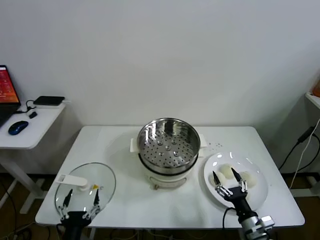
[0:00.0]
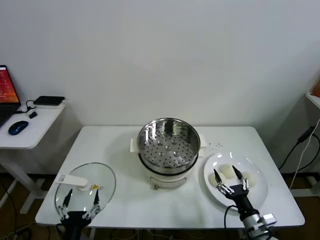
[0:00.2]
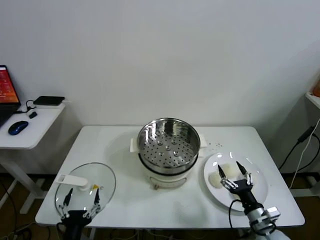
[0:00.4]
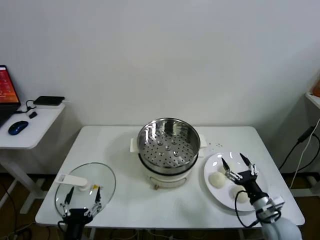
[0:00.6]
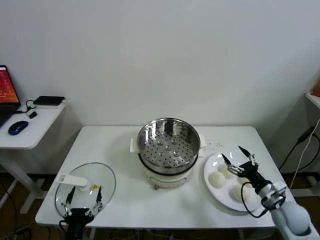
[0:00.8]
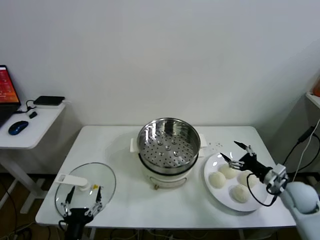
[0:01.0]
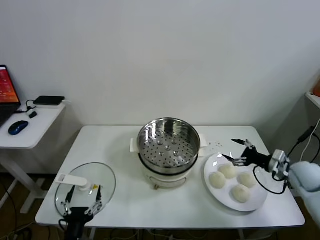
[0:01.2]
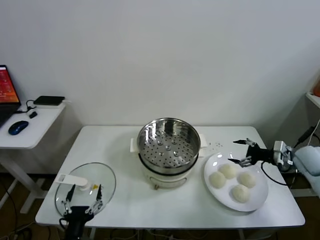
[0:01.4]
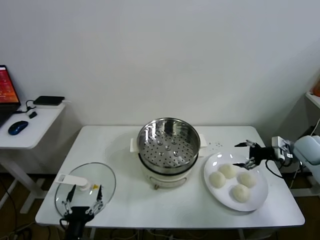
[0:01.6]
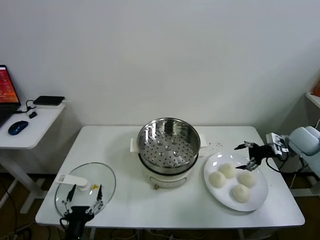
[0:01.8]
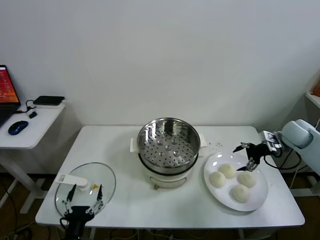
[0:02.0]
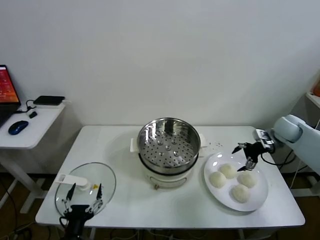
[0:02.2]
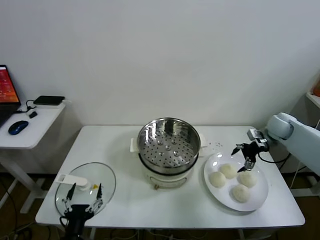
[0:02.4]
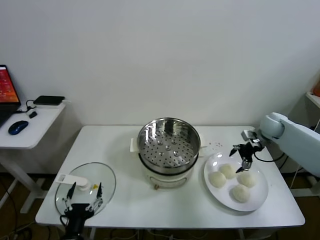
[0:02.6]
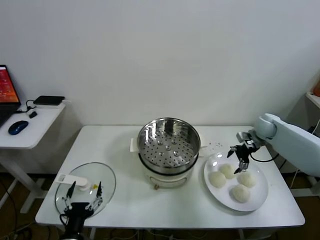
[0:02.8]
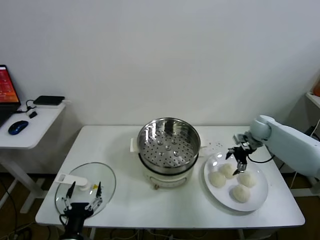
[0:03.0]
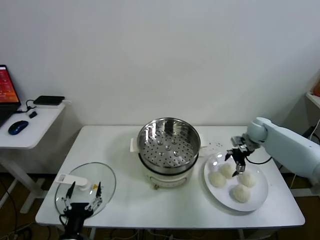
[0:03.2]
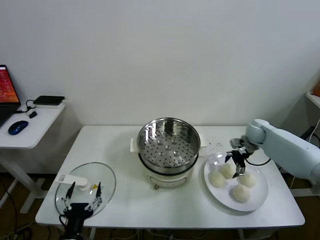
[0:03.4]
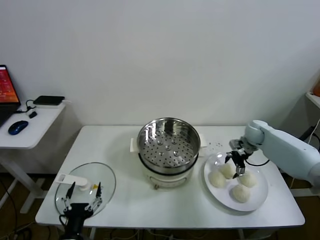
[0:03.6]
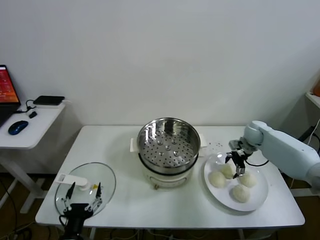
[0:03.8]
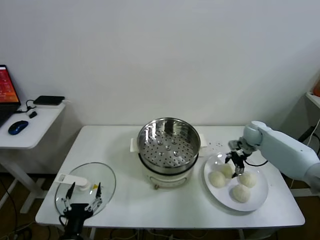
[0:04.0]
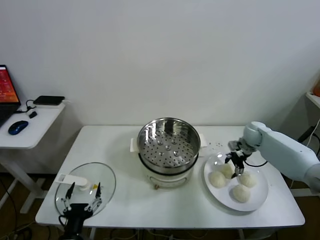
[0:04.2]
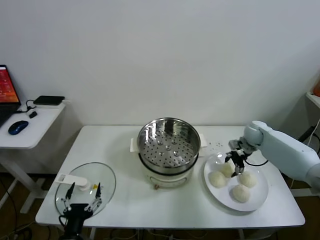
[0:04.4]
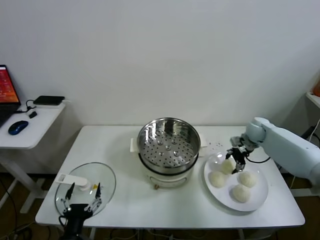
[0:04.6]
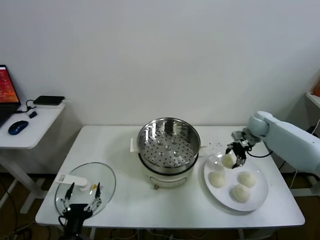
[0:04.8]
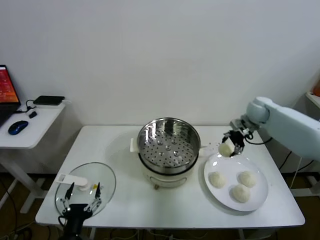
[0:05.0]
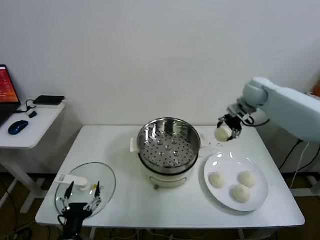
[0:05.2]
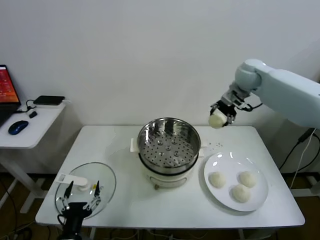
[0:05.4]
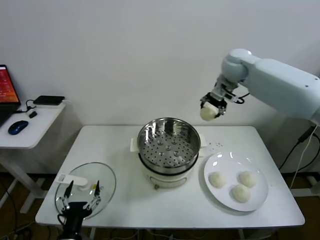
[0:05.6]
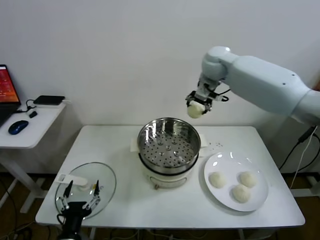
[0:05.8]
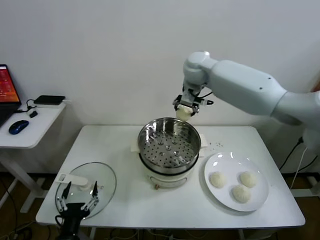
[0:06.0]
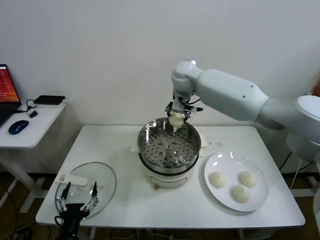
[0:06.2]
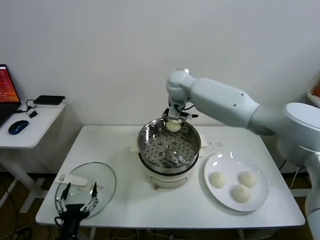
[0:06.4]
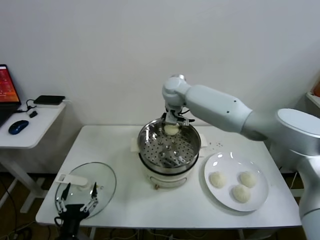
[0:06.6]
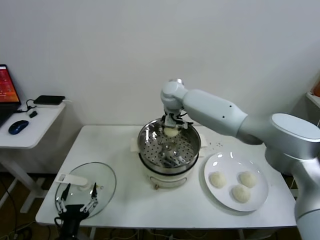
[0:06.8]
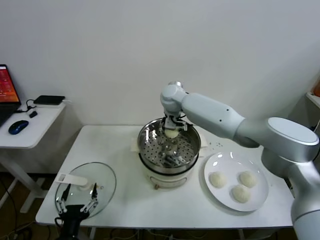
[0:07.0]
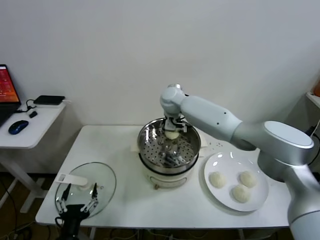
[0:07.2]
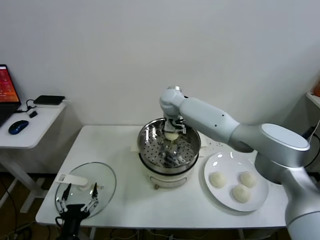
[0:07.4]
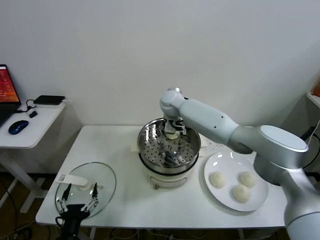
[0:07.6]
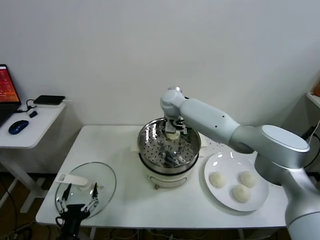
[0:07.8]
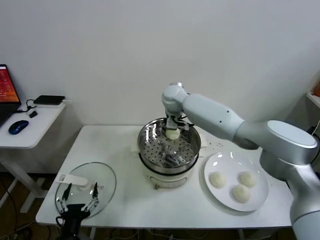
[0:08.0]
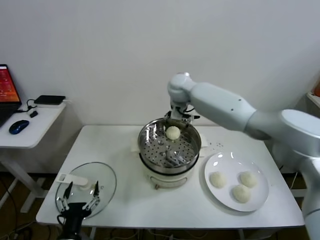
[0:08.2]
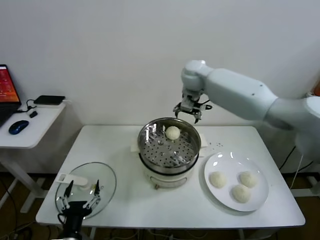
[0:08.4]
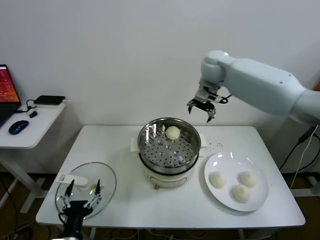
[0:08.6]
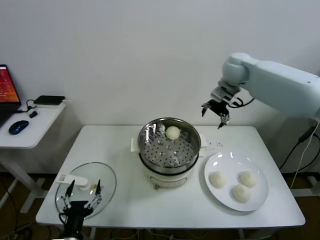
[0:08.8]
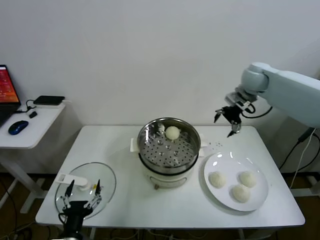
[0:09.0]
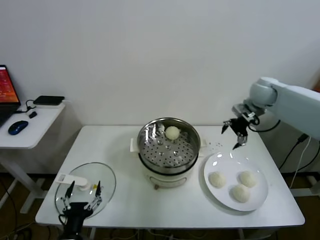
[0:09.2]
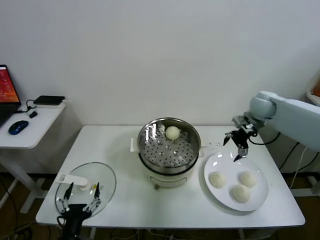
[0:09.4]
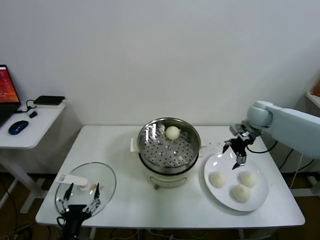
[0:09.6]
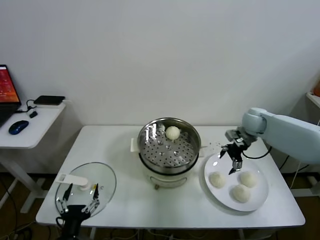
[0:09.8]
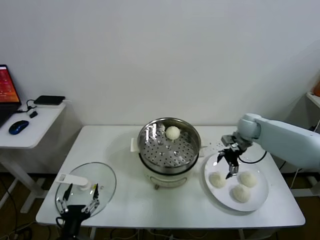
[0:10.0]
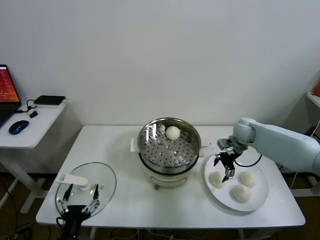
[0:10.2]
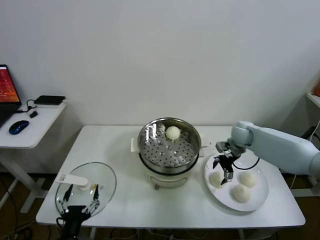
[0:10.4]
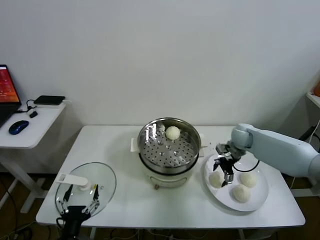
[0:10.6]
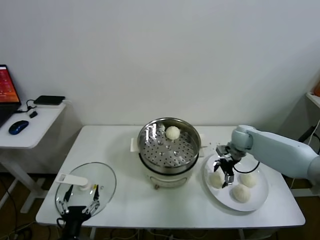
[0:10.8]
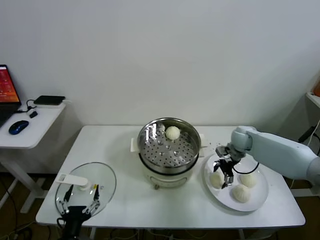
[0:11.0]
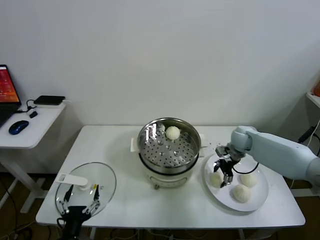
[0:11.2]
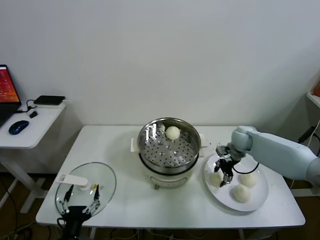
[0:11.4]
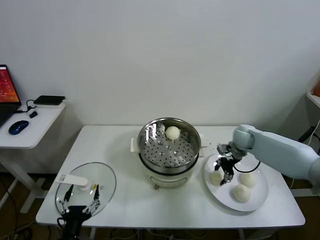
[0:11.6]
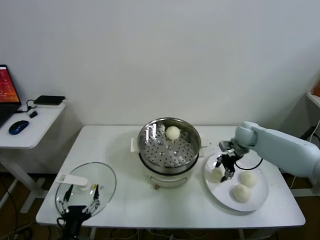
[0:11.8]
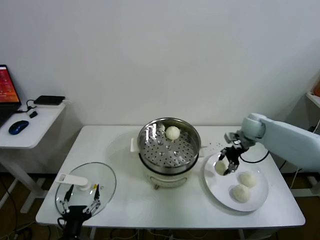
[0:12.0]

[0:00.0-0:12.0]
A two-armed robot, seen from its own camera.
Task of the whole recording: take steamed baozi put them in steamer.
Step, 0.0 to 4.4 s: Grasp the baozi in the plate with right gripper.
Step, 4.6 to 7.8 s: Place the baozi on the steamer with right gripper.
Step, 8.0 to 11.2 s: Grasp the baozi in the plate with right gripper.
1.6 to 3.0 s: The right gripper moves forward and to the left, approximately 15 cm.
3.0 to 4.4 s: The right gripper closes up.
4.4 to 6.0 s: The right gripper is displaced to the left and upward by roughly 40 cm.
6.0 to 7.6 s: The right gripper is displaced downward and to the left by approximately 15 cm, and opens its fingers.
7.6 to 9.0 s: The right gripper travels to the right by roughly 30 cm.
9.0 to 10.4 s: The right gripper is displaced downward by some 20 cm.
10.4 to 12.0 s: The right gripper moves upward, roughly 5 cm, and closes its fingers.

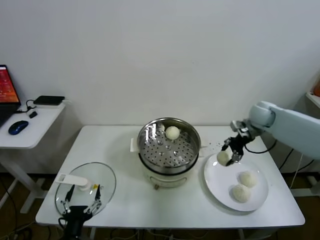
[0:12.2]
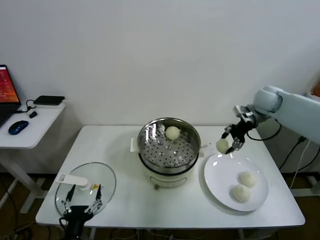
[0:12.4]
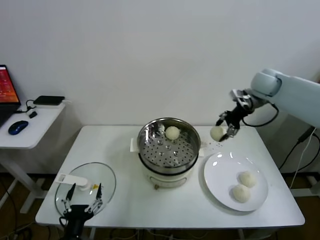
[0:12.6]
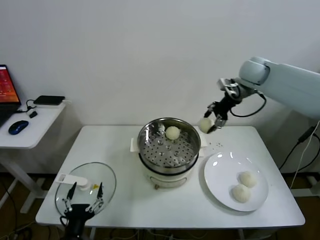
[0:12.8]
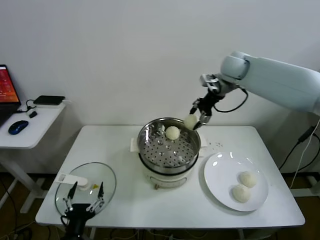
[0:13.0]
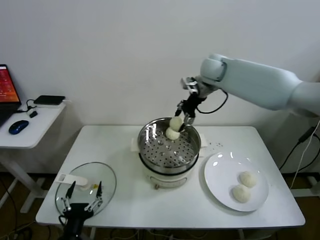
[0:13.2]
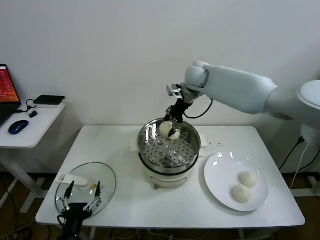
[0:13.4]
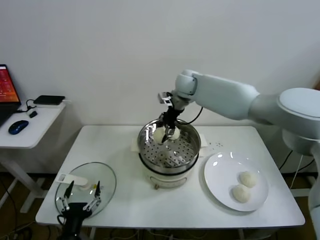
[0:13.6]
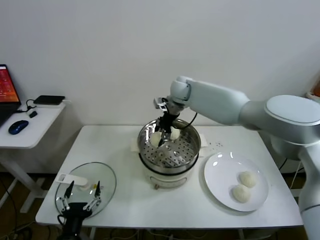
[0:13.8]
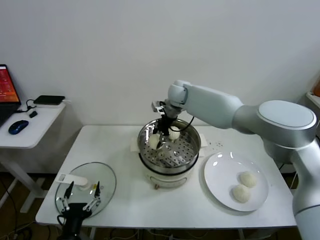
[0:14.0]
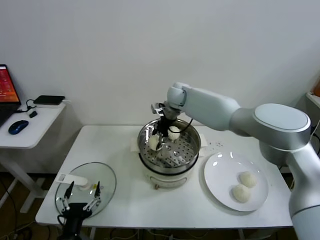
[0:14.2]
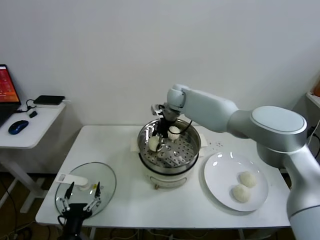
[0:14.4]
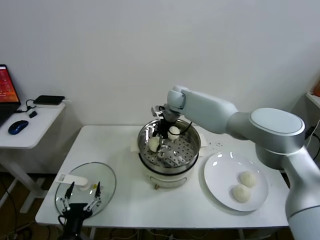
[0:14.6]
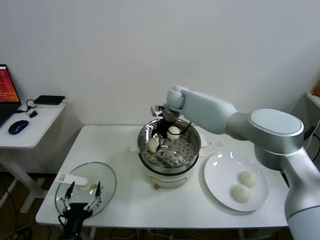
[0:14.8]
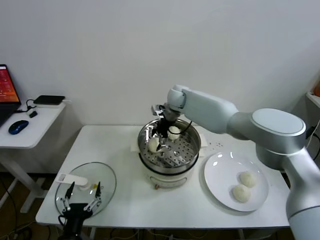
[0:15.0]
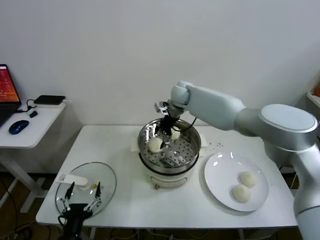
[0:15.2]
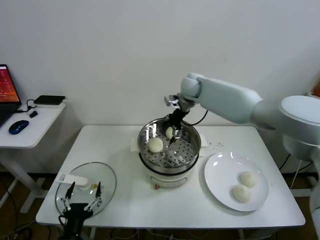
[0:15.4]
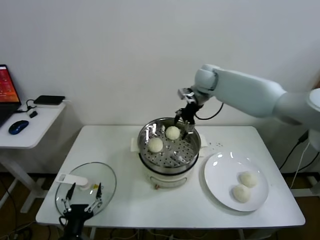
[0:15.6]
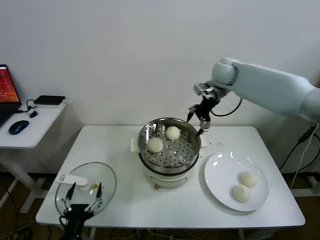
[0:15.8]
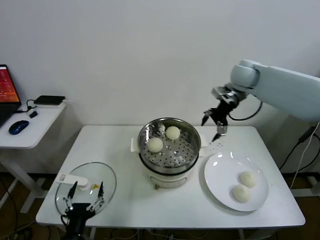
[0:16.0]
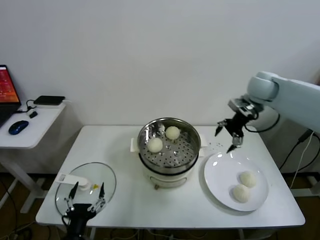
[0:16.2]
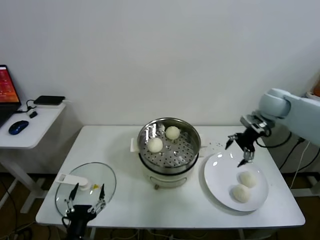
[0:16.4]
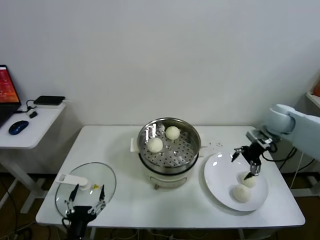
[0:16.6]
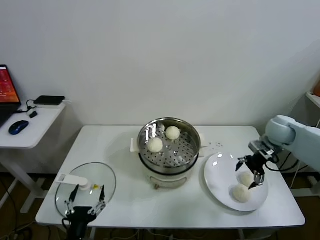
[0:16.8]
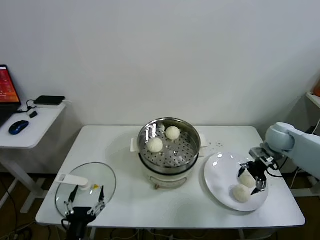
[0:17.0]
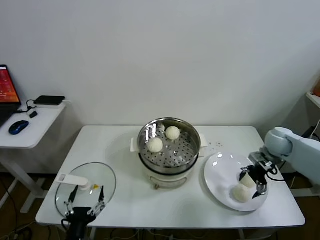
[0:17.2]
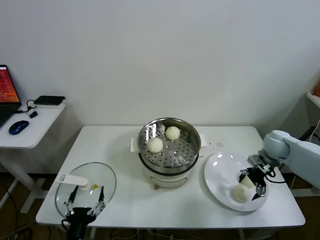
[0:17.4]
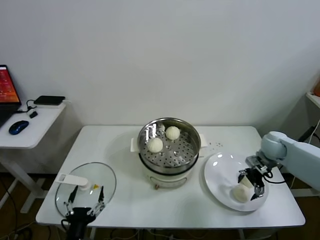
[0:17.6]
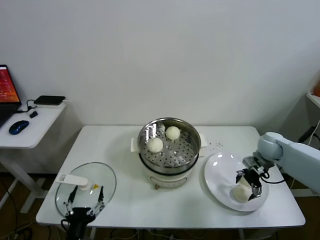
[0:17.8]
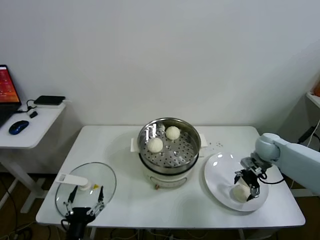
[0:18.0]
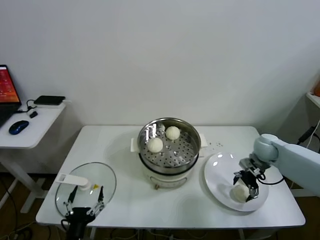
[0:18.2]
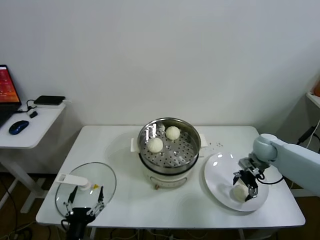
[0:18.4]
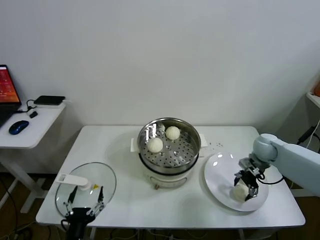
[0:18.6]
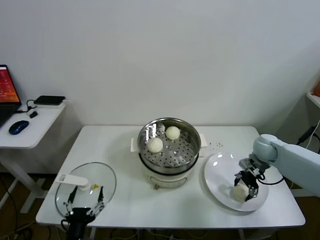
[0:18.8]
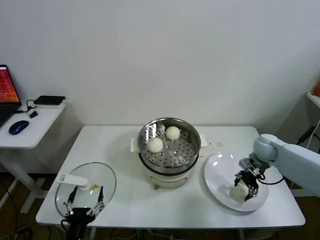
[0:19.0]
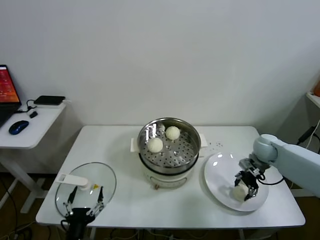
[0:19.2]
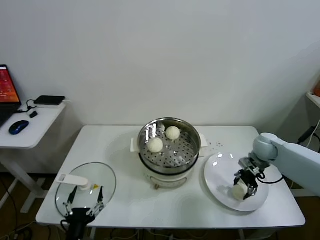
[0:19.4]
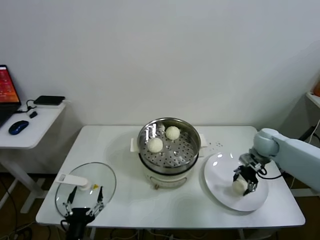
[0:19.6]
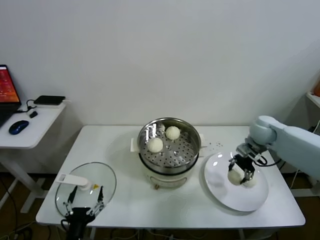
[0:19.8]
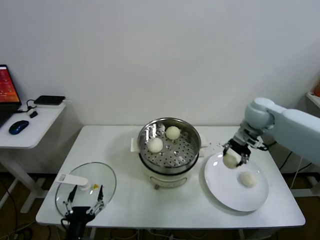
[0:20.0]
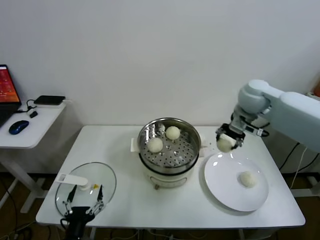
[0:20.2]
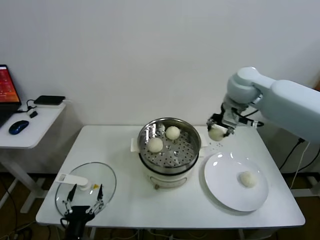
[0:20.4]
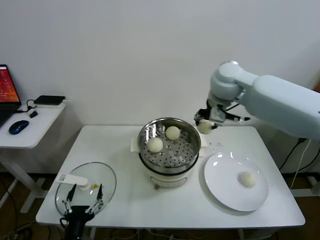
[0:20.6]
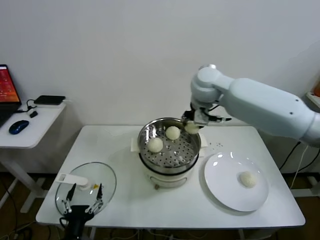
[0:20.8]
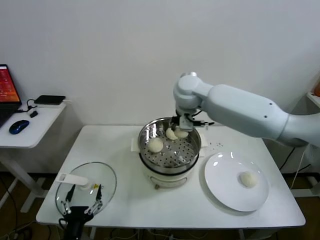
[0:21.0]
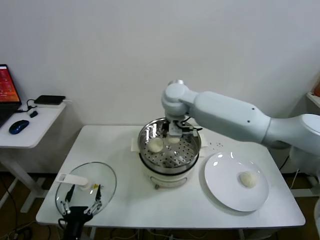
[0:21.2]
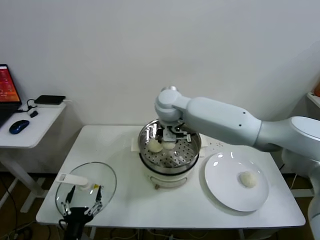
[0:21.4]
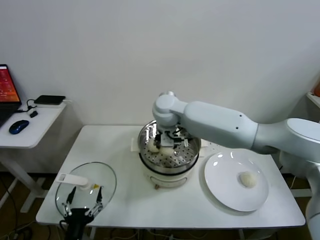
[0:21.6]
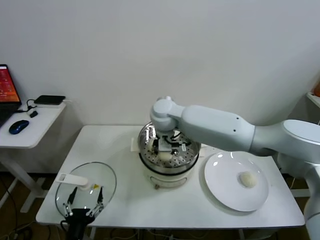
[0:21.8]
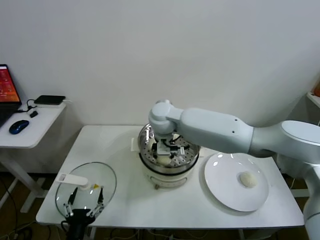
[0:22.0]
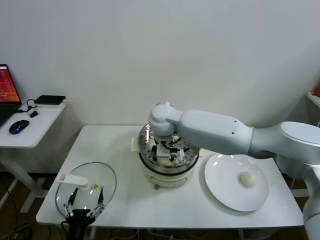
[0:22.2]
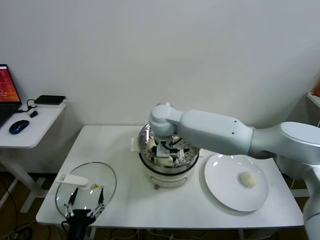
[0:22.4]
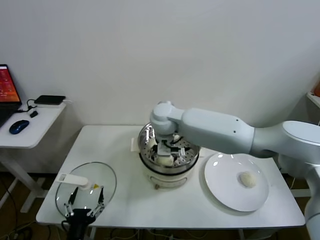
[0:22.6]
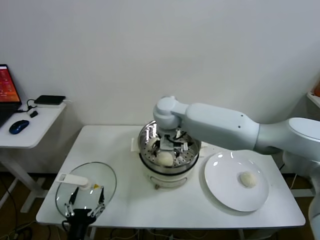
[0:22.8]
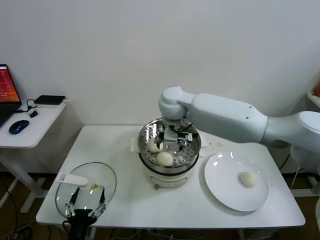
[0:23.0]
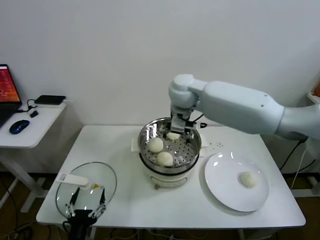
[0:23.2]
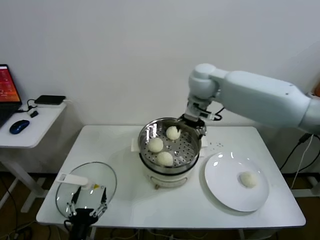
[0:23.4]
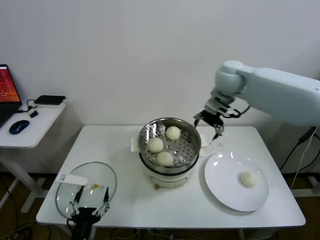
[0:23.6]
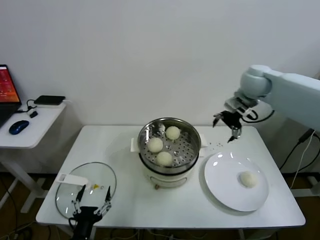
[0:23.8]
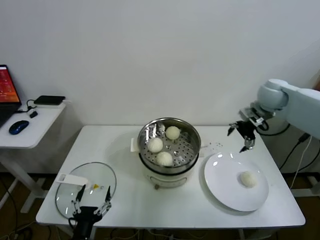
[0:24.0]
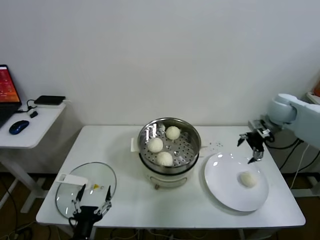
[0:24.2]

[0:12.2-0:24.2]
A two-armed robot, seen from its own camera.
Task of the whole recording: take steamed baozi put them in steamer.
Step, 12.2 to 15.0 s: Place the baozi on the steamer with right gripper.
Step, 15.2 to 19.2 s: Grasp the baozi in the plate with right gripper.
Step, 19.4 to 22.6 s: Place the baozi on the steamer with right gripper.
12.2 to 13.8 s: The right gripper travels to the left by about 30 cm.
13.8 to 15.2 s: The right gripper opens.
15.2 to 16.6 s: The right gripper shifts approximately 35 cm to the right and backward.
16.6 to 18.2 s: The right gripper goes about 10 cm downward.
18.2 to 19.8 s: The right gripper goes some 10 cm upward, and closes up.
19.8 to 21.2 s: The right gripper goes some 30 cm to the left.
21.2 to 22.6 s: The right gripper heads downward, covering some 5 cm, and opens its fingers.
22.6 to 24.2 s: The right gripper is displaced to the right by approximately 40 cm.
